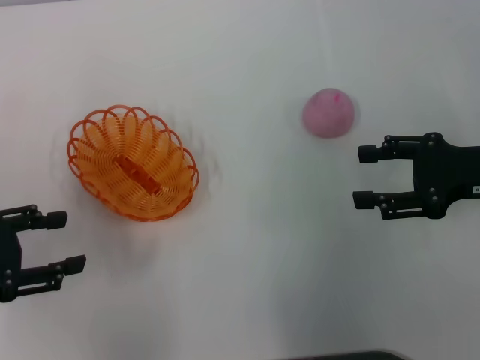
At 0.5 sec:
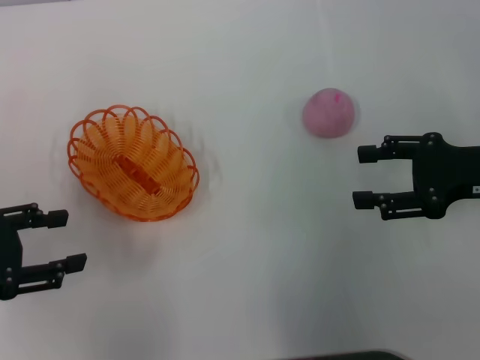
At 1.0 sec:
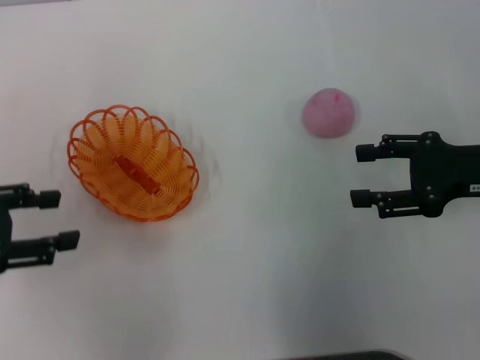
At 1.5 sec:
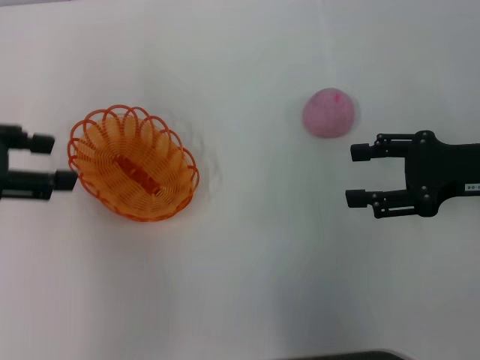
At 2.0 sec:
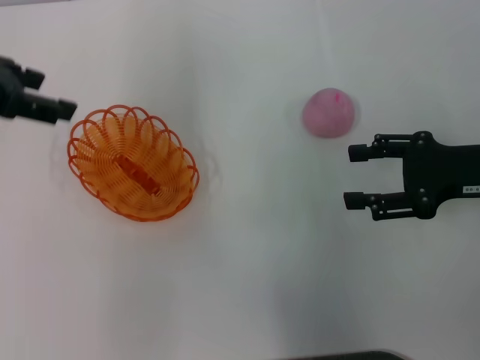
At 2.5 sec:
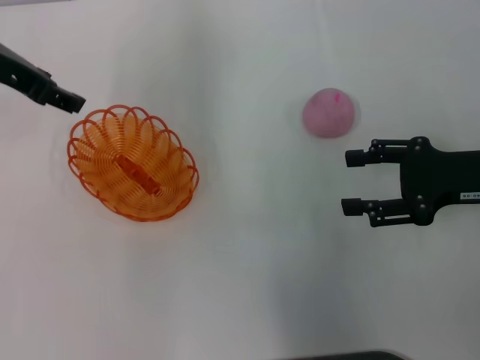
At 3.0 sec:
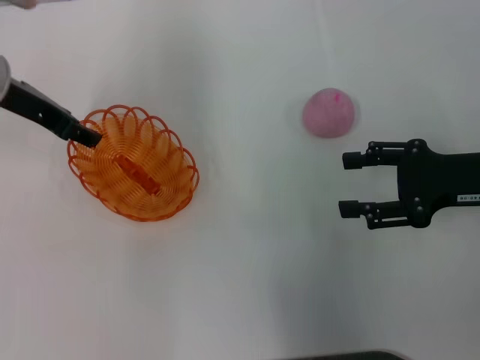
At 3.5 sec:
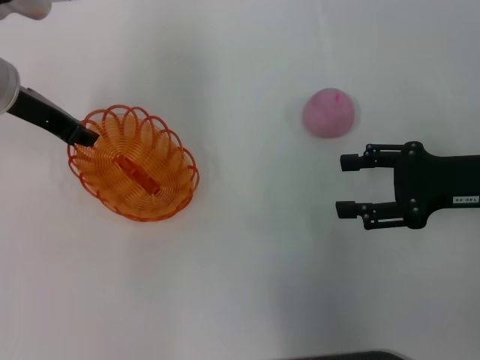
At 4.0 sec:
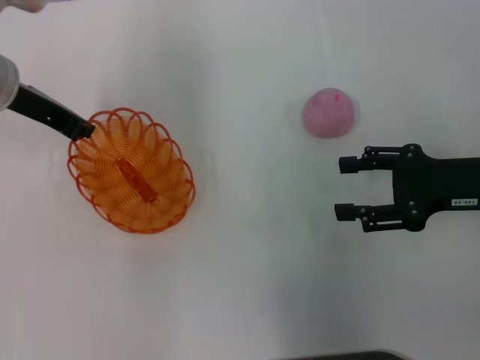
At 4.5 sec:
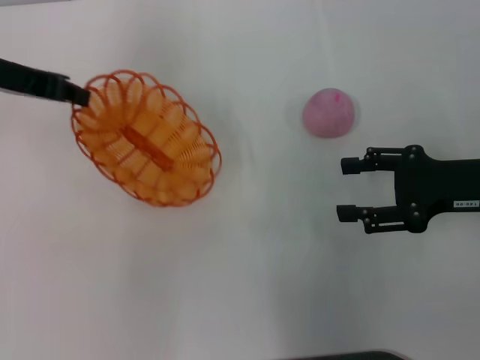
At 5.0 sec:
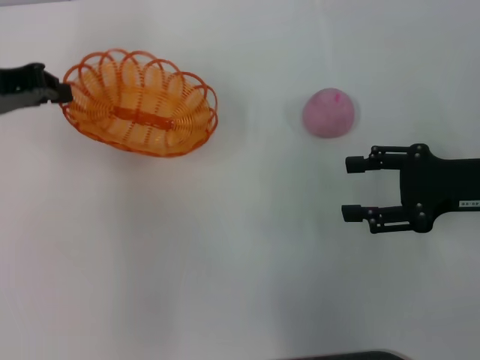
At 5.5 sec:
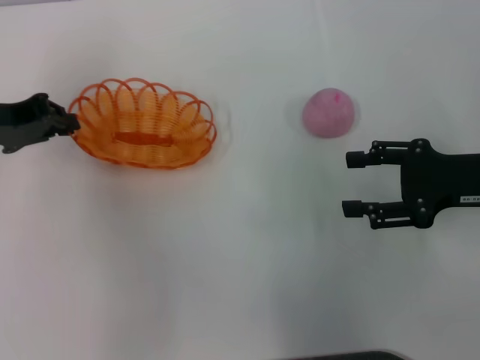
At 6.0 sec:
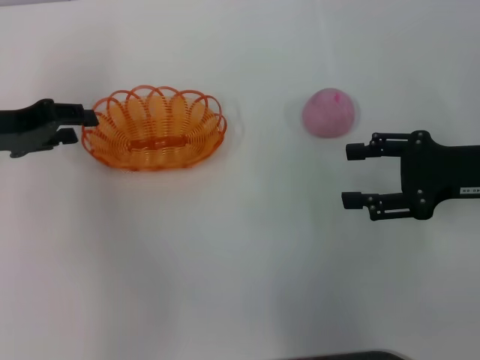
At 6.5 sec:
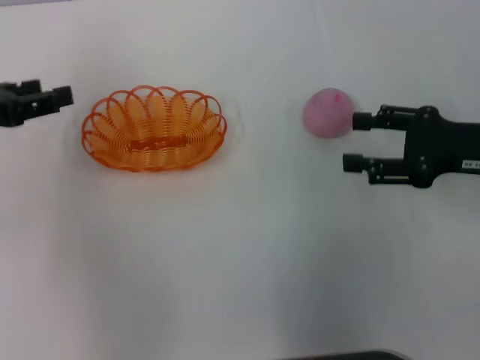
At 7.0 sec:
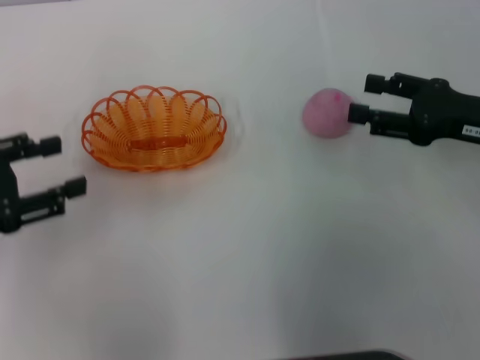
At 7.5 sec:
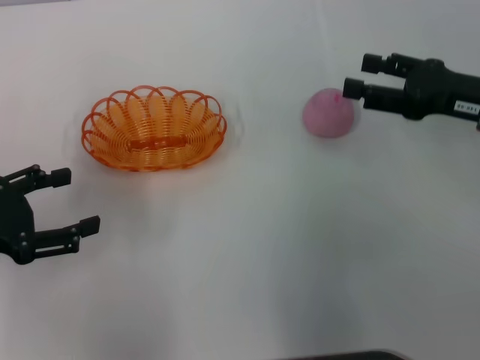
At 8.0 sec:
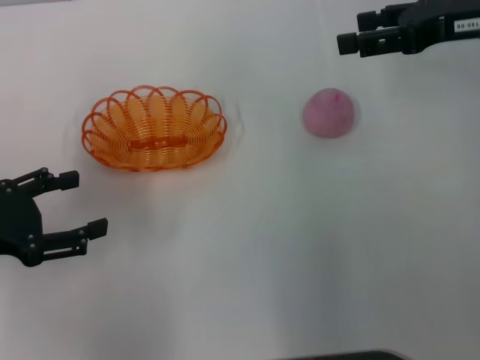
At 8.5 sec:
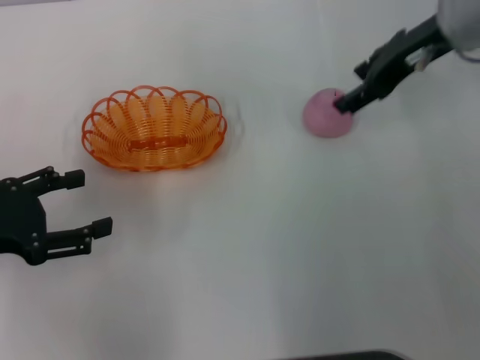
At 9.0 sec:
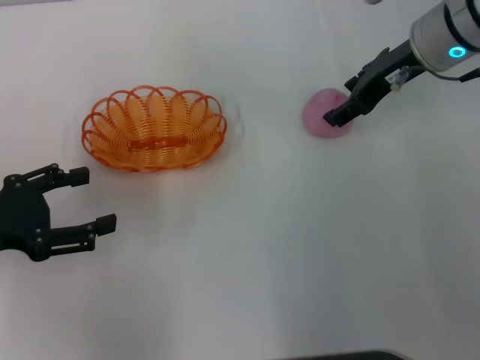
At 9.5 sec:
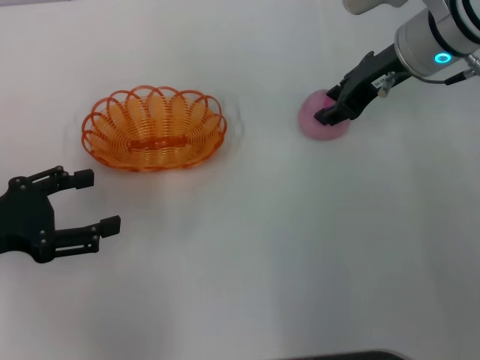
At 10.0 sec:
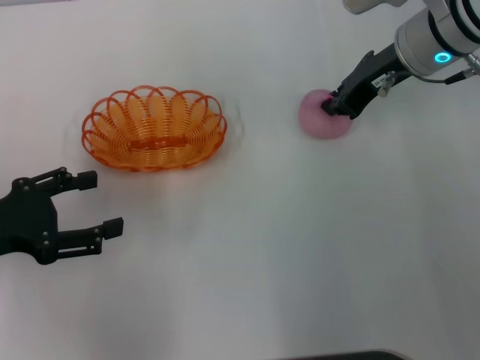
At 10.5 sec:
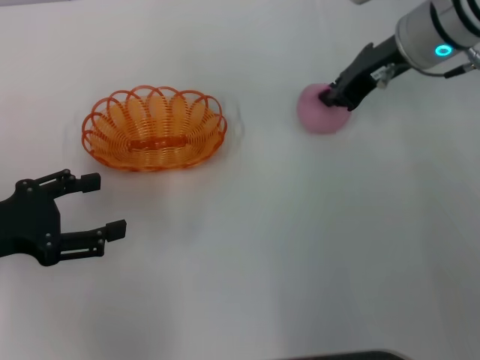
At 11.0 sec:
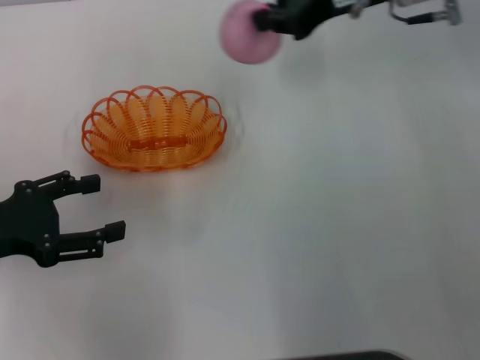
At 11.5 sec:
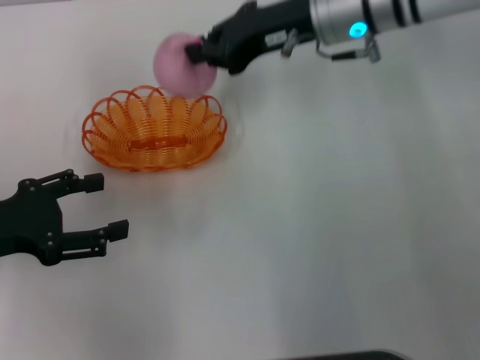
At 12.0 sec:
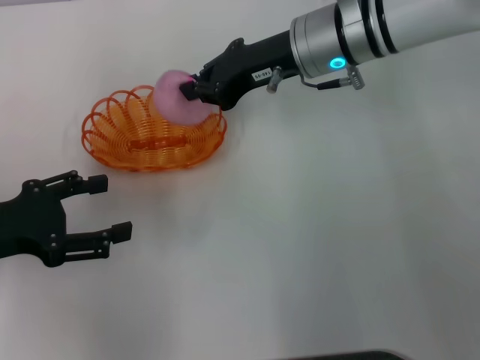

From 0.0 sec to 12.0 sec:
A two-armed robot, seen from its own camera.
Step, from 0.0 sec to 4.5 sec: Pick up the basket with the left gripper.
Step, from 5.0 sec to 6.5 sec: Place the basket in the center of view with the left gripper.
Step, from 7.0 sec to 10.5 sec: Pick up the peach with the right gripper.
From 0.0 sec to 2.0 sec: The left gripper travels upward, forward and to the right by about 20 cm.
From 2.0 sec to 4.0 sec: The left gripper heads downward and forward, covering approximately 10 cm, and closes.
From 4.0 sec to 6.0 sec: The left gripper travels to the left and backward by about 10 cm.
From 6.0 sec to 8.0 sec: The right gripper goes about 15 cm forward and upward. The left gripper travels backward by some 10 cm, and opens up.
From 8.0 sec to 10.0 sec: The right gripper shifts about 10 cm to the left, and closes its fingers.
From 10.0 sec to 12.0 sec: The right gripper travels to the left by some 10 cm.

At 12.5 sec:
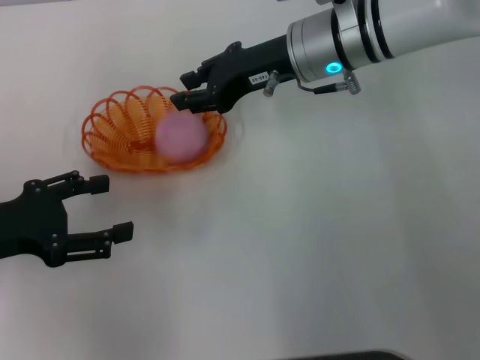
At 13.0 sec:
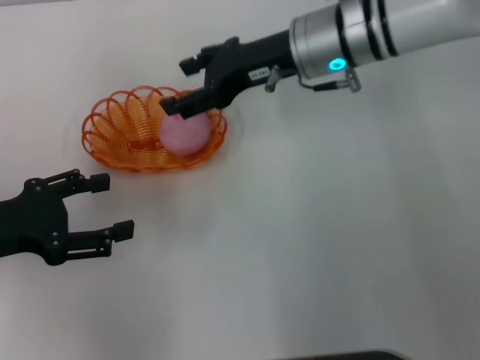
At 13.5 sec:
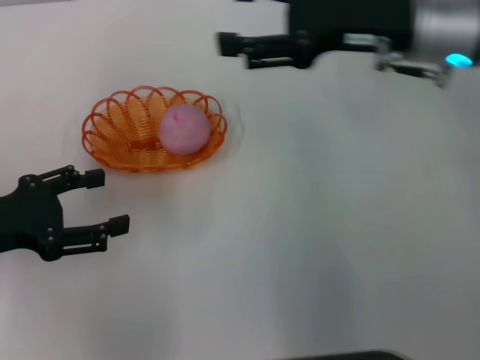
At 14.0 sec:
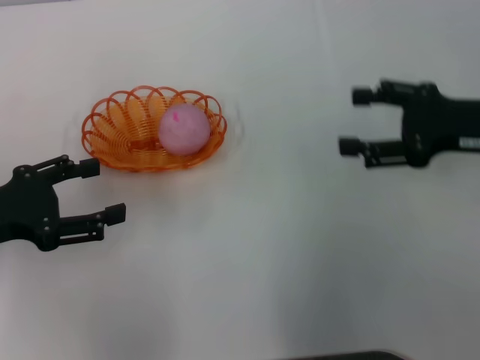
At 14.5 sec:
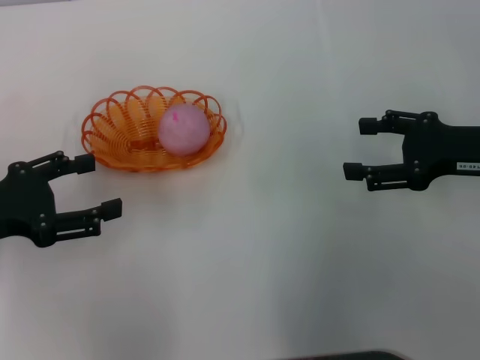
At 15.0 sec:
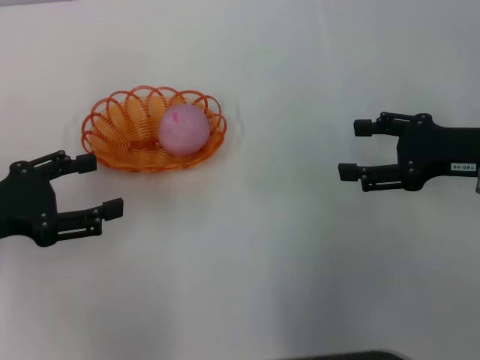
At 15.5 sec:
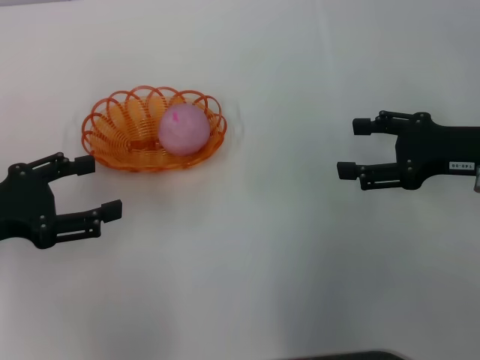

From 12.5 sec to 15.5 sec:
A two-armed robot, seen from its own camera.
From 12.5 sec to 14.0 sec: The right gripper shifts approximately 20 cm to the right and backward, and opens.
From 14.0 sec to 15.5 sec: The grippers move only a little.

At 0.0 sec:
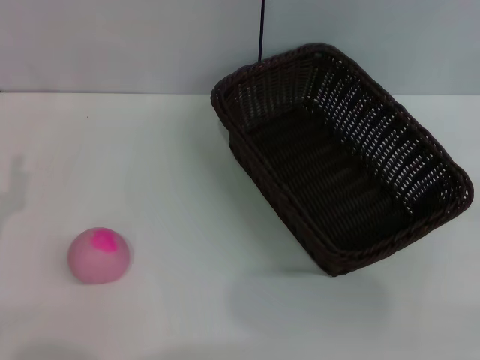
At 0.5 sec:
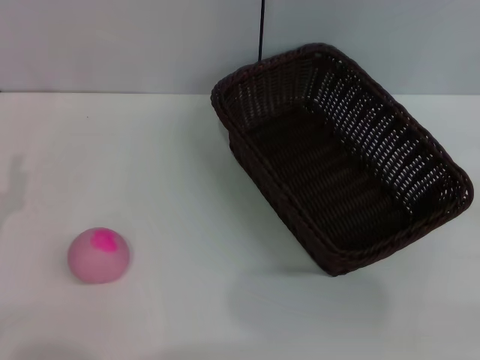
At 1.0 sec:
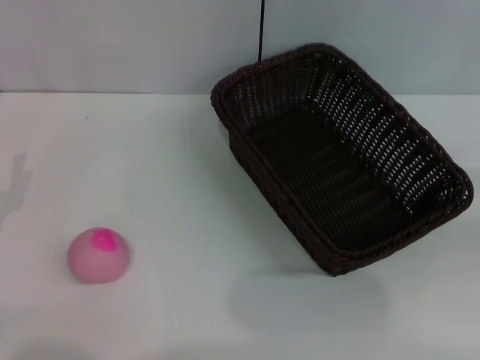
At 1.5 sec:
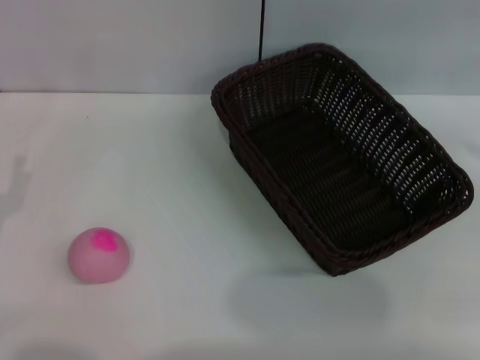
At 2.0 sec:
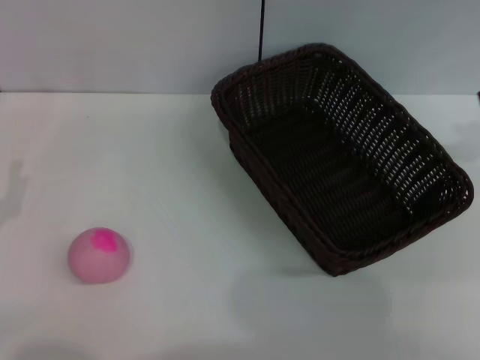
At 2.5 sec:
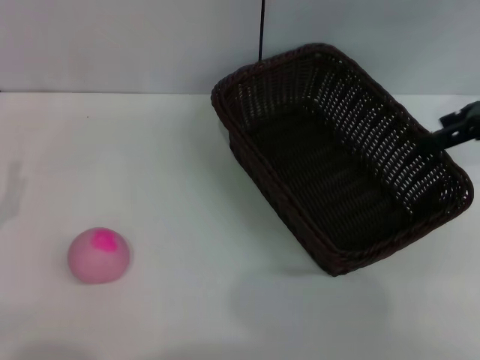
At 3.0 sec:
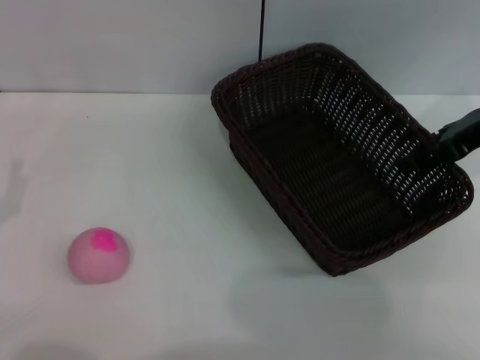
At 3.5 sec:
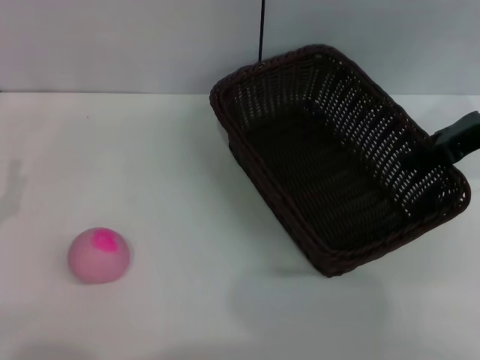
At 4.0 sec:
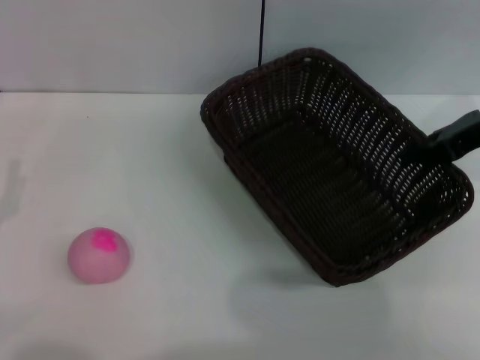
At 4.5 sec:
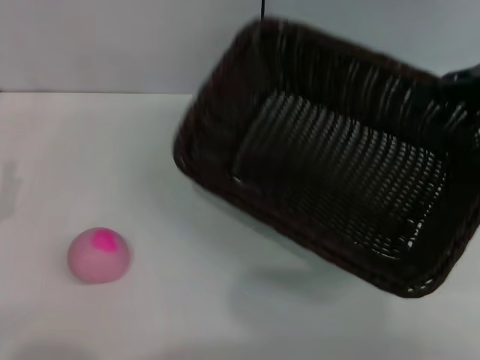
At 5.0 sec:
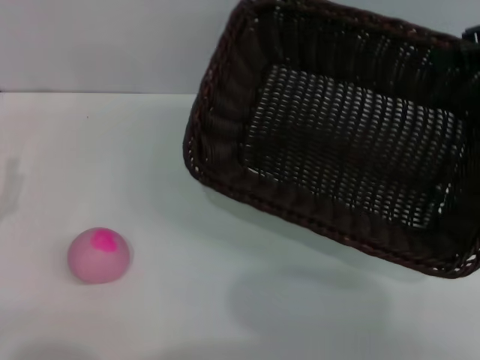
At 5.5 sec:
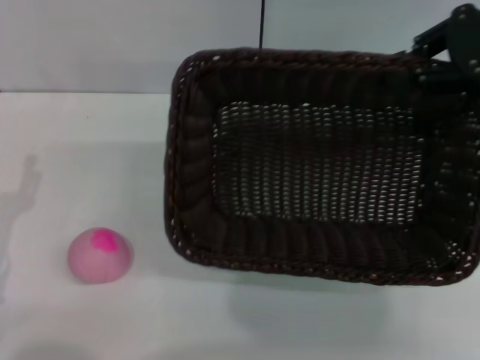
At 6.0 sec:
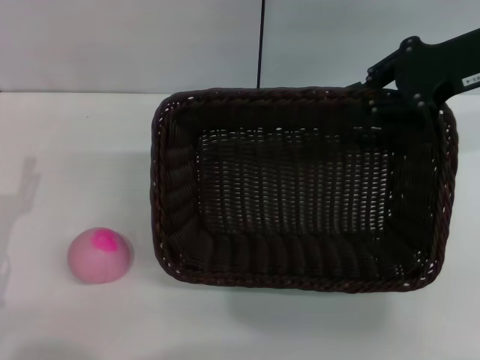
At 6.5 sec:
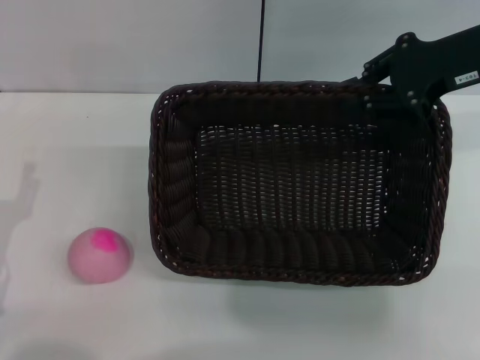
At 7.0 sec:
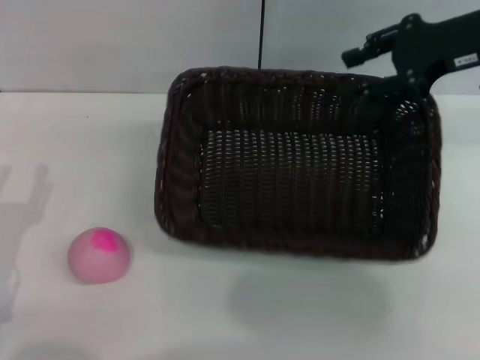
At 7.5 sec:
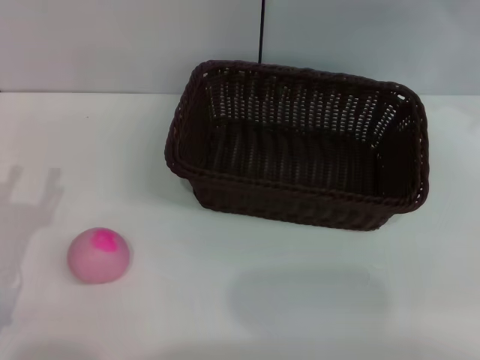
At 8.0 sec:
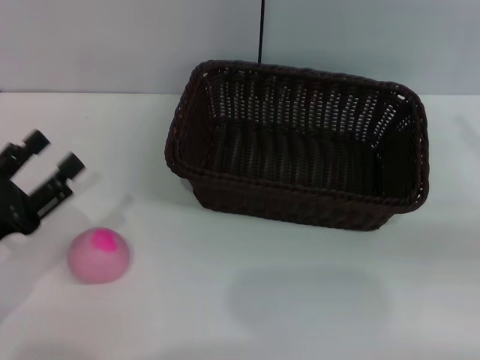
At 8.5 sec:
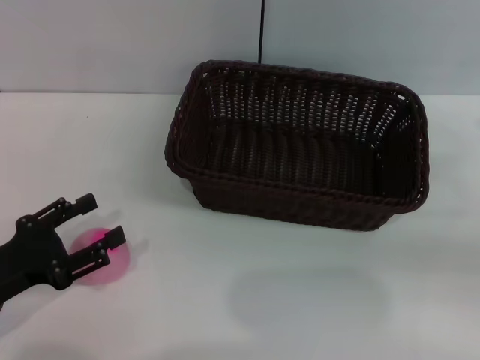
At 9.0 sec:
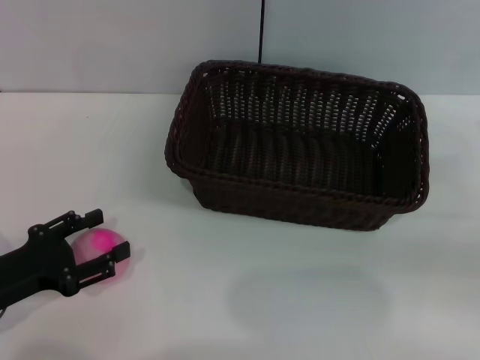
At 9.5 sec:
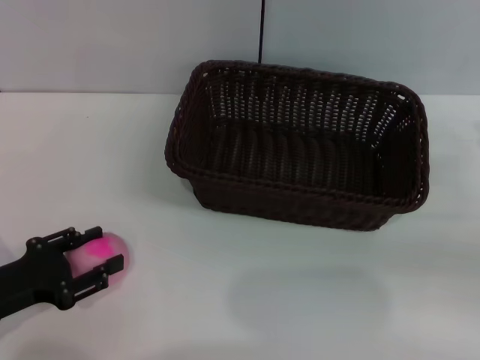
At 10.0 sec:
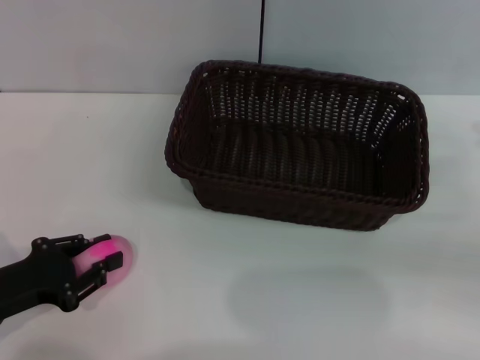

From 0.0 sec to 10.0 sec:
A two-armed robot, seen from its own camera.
Step, from 0.0 sec to 4.5 sec: Pick up the dark basket with the right gripper.
Step, from 5.5 sec to 7.0 sec: Place the dark basket in the center of view with the right gripper.
From 0.0 sec to 2.0 sec: The right gripper travels upward and forward by approximately 25 cm.
From 2.0 sec to 4.0 sec: The right gripper heads downward and to the left, covering about 10 cm, and closes.
From 4.0 sec to 6.0 sec: The right gripper moves about 5 cm.
From 6.0 sec to 8.0 sec: The right gripper is displaced backward, to the right and downward by approximately 20 cm, and opens up.
From 8.0 sec to 10.0 sec: The left gripper closes up.
